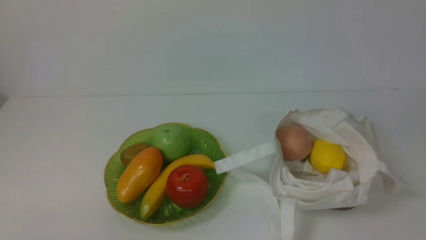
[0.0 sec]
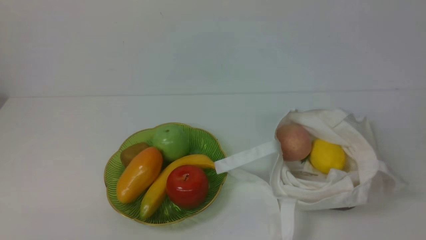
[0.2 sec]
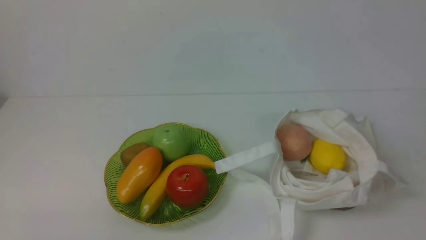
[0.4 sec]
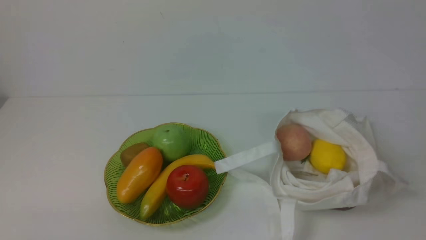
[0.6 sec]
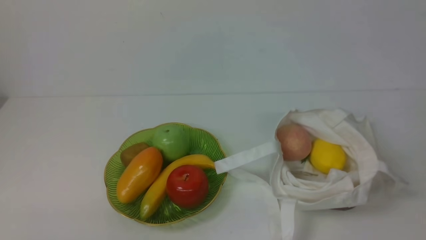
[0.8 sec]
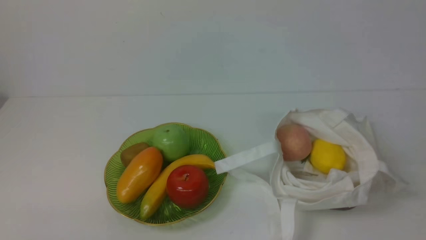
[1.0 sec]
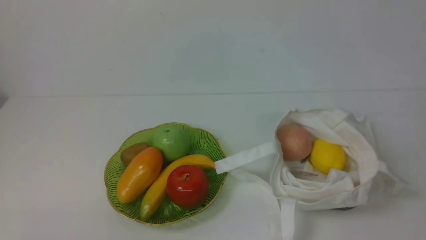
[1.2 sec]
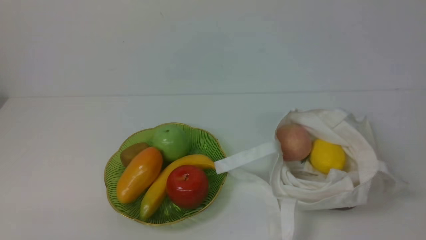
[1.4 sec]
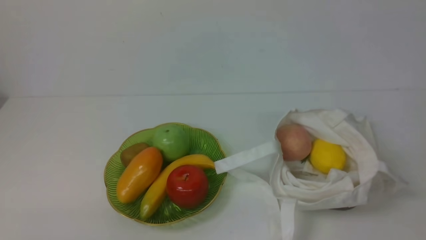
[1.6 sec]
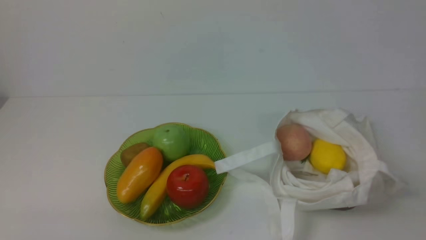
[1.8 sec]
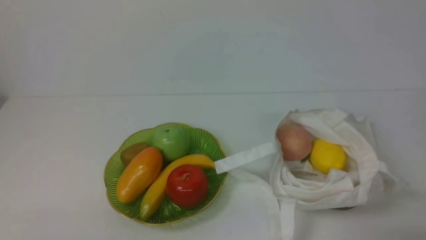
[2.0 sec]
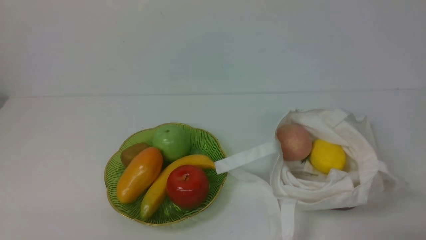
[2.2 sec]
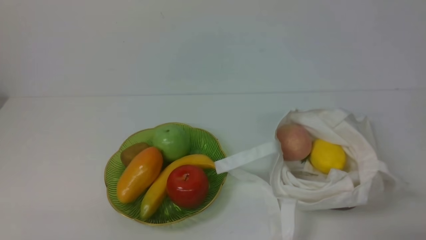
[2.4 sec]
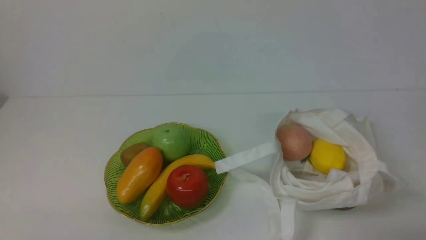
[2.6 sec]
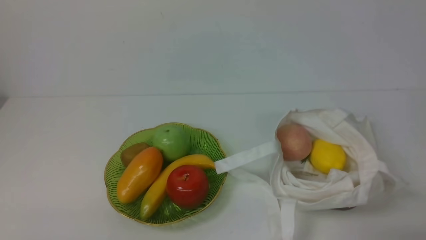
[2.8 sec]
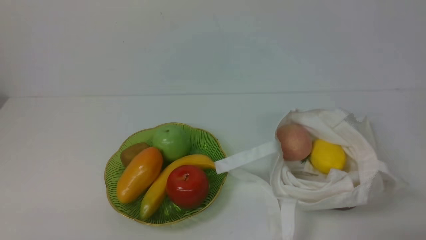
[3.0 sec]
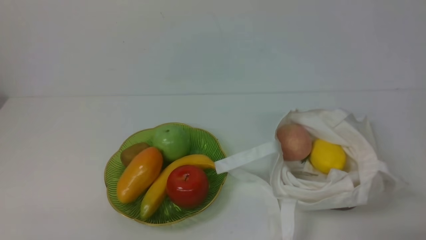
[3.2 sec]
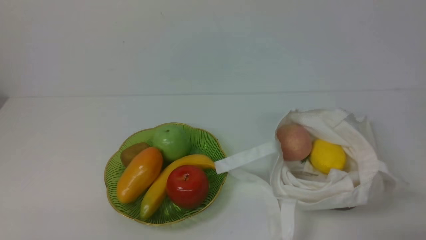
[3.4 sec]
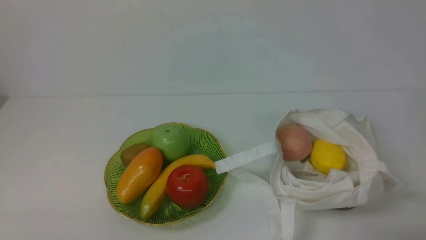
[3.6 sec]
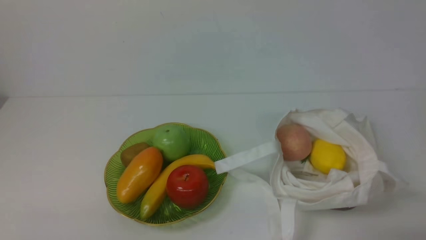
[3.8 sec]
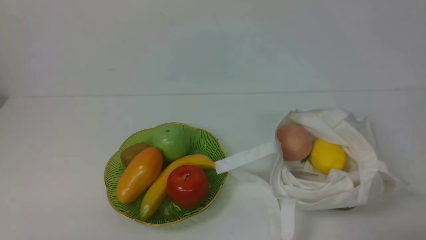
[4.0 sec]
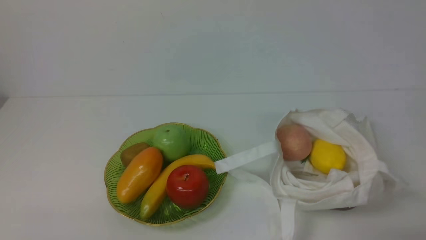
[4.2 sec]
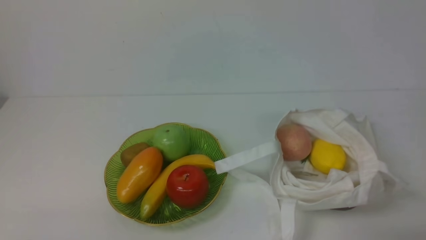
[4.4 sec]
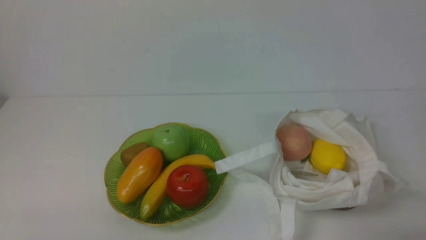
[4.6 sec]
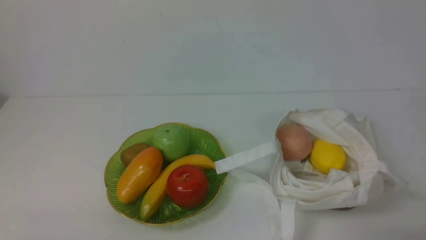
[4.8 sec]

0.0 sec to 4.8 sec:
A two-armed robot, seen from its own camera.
3.2 sec to 4.8 sec: Neither gripper changes place.
